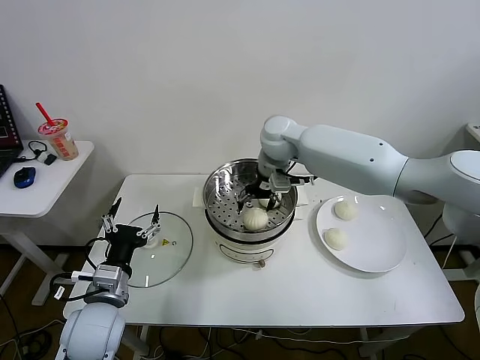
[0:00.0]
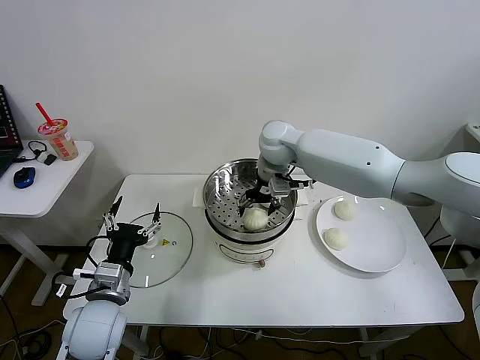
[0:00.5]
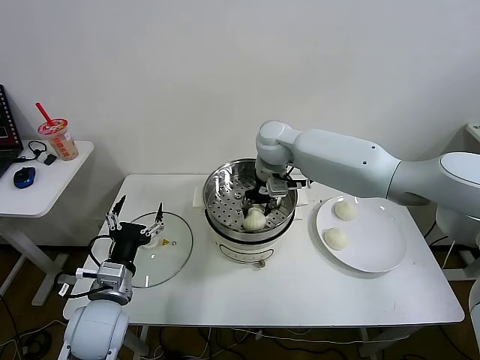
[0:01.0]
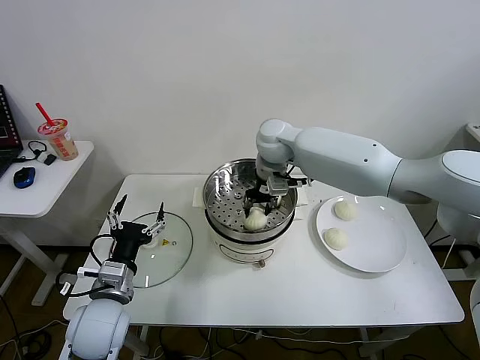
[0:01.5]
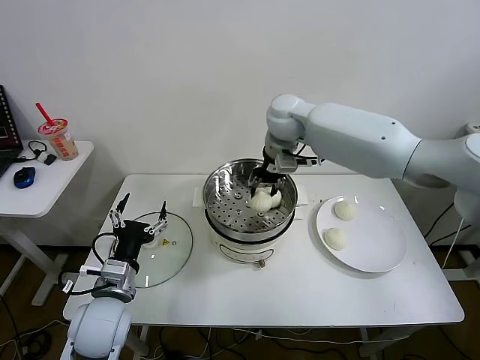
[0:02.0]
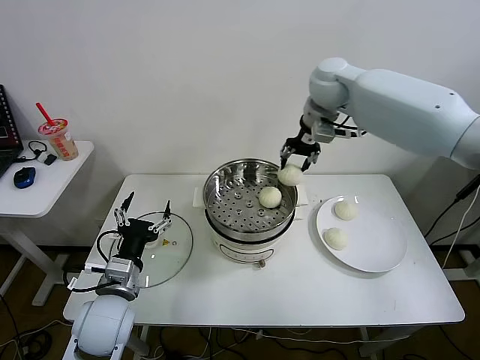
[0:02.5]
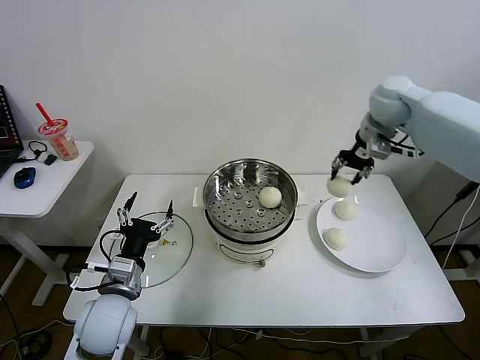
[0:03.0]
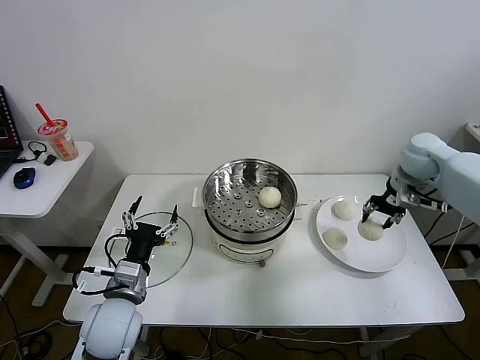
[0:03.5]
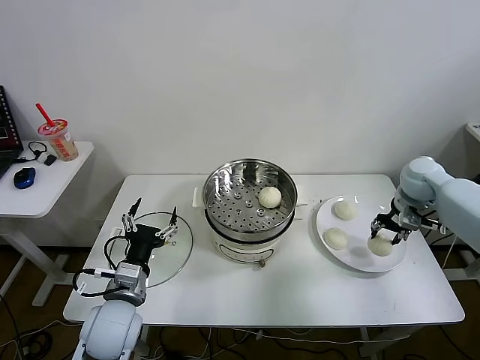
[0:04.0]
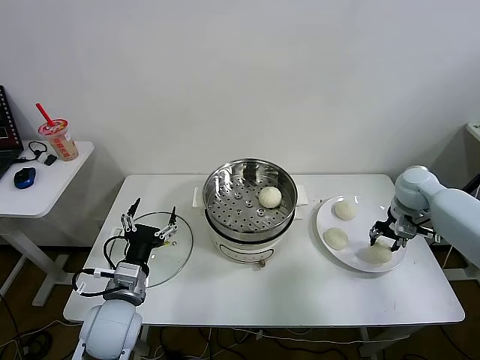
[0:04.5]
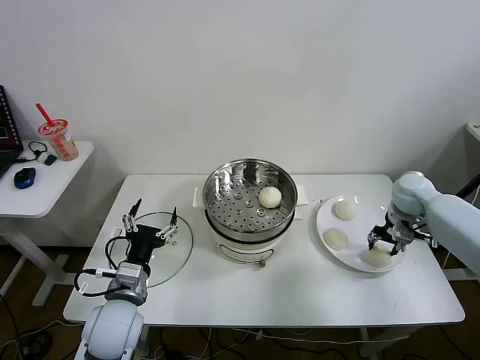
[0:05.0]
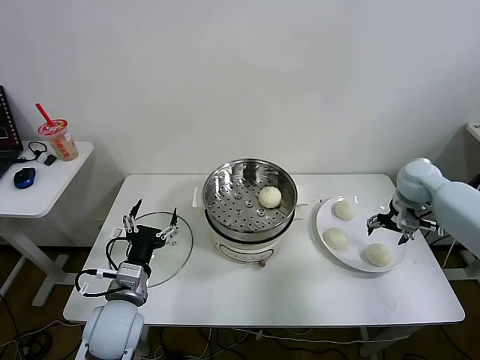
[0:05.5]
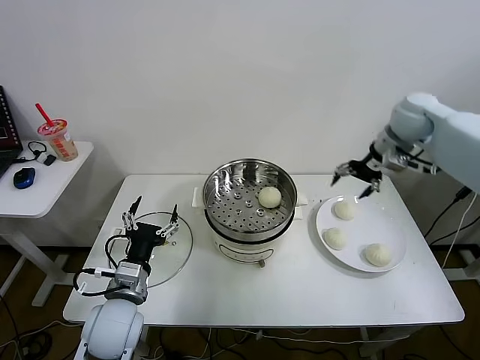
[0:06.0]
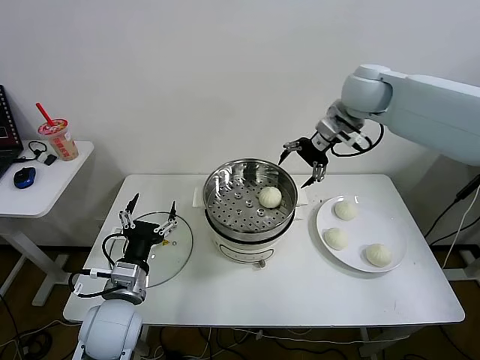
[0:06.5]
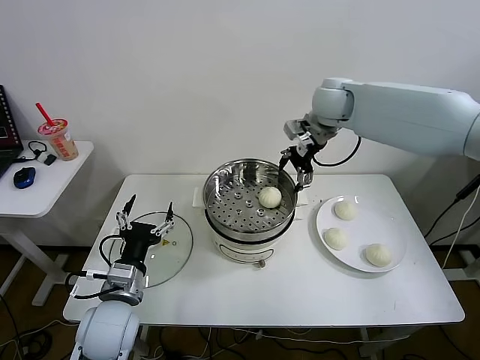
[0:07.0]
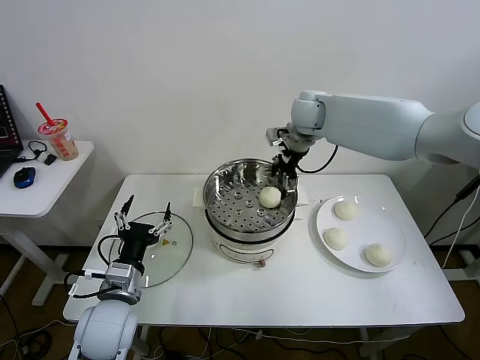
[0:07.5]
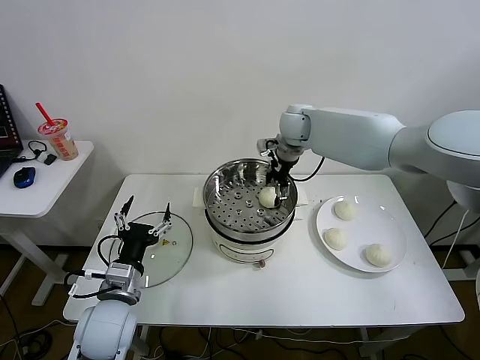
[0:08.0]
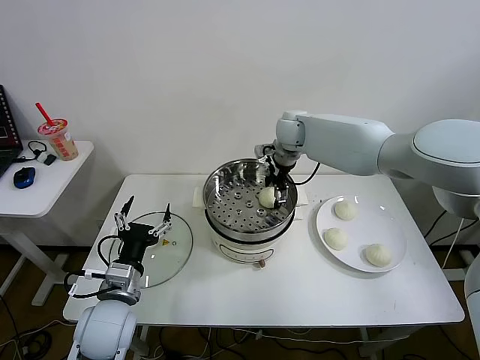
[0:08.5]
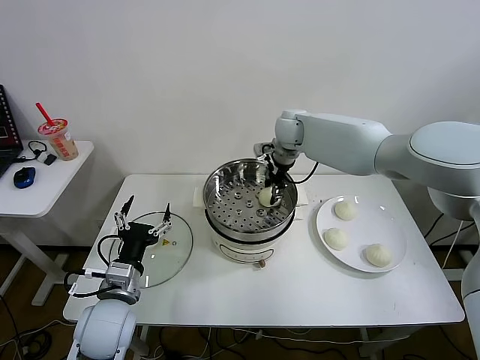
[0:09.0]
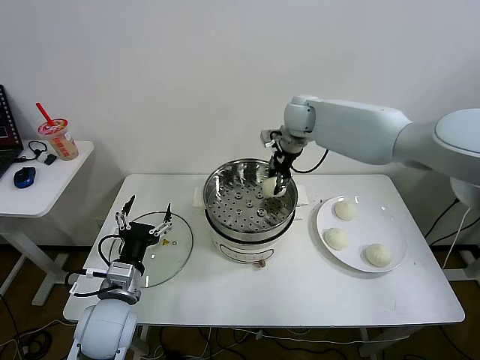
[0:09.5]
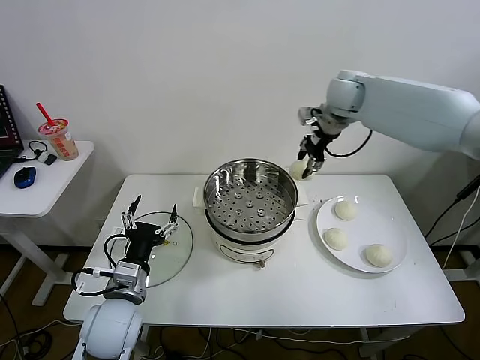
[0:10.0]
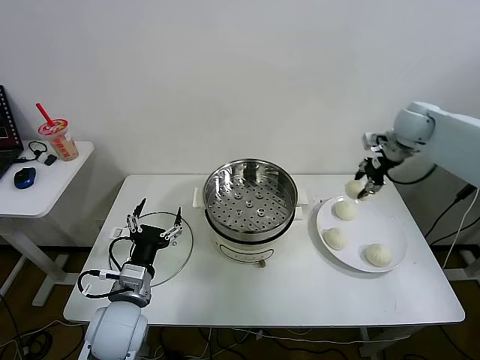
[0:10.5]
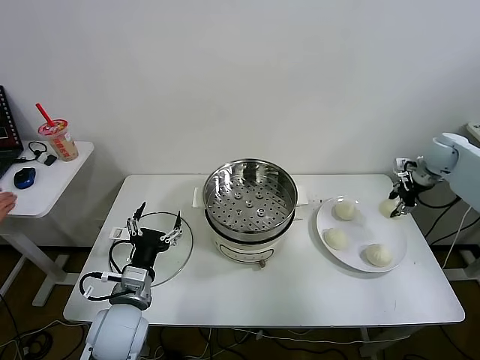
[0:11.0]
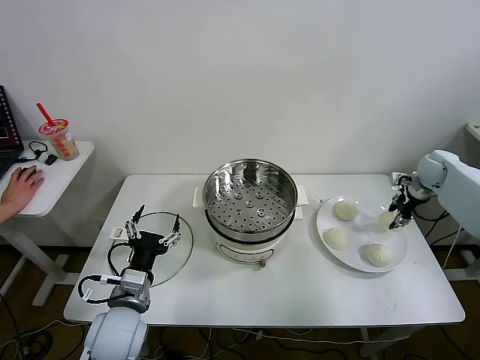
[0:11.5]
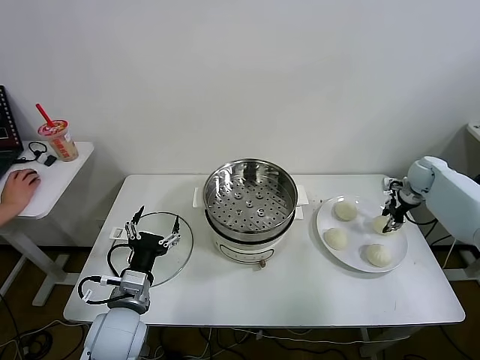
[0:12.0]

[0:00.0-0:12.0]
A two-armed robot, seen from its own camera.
Task of the whole recording: take steamed baozi put them in steamer then cover it.
Step, 0:01.5 to 0:05.0: Place the baozi on the plate with right gripper.
Step, 0:05.5 to 0:09.0: Grasp the baozi with right gripper.
0:00.0 to 0:02.0: The right gripper closes.
0:02.0 to 0:04.0: The right gripper is displaced to the right by approximately 35 cm.
0:04.0 to 0:06.0: The right gripper goes about 15 cm upward and to the left, and opens up.
0:06.0 to 0:08.0: The right gripper heads to the left, covering some 25 cm.
0:08.0 to 0:10.0: The right gripper heads to the right and upward, covering some 10 cm, and closes its fingers.
0:10.0 to 0:12.0: The right gripper travels to the right and downward by about 35 cm.

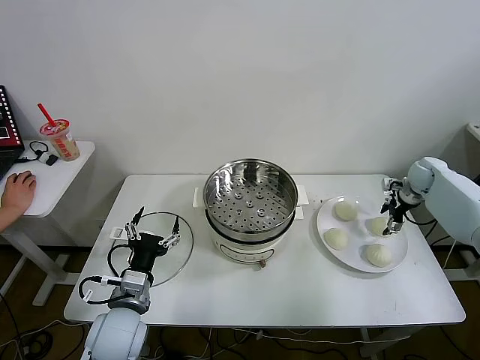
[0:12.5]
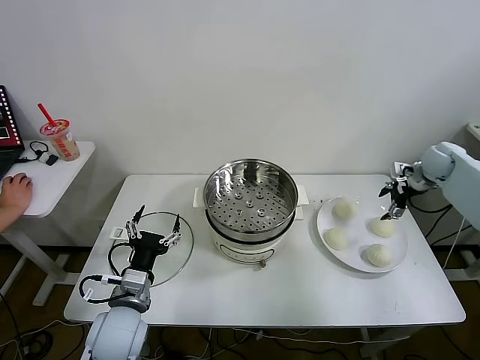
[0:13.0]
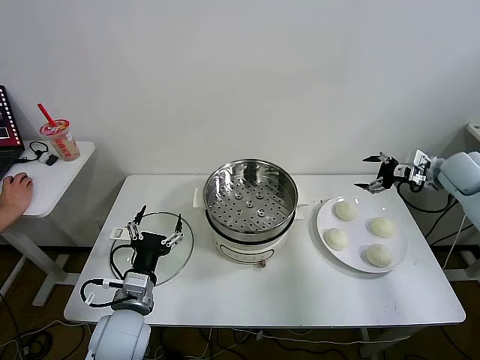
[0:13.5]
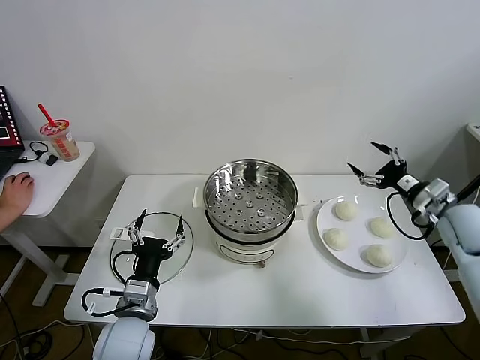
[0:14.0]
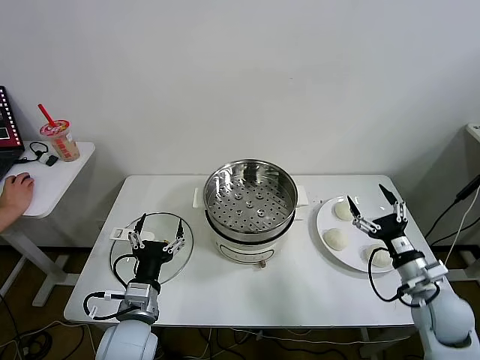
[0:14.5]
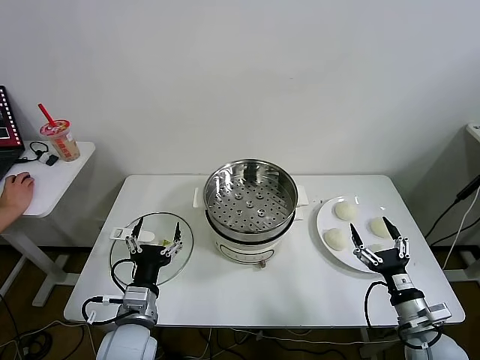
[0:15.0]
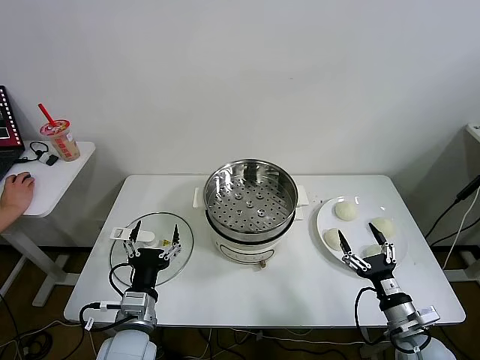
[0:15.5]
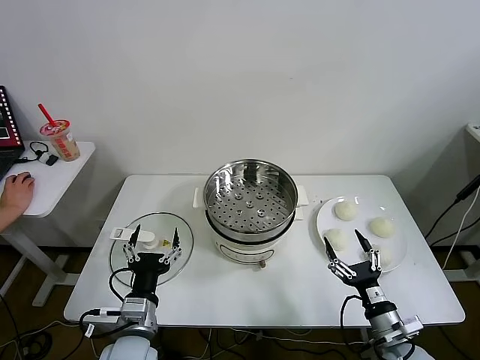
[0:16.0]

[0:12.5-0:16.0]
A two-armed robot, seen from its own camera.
Task of the whole recording: take steamed baozi put them in steamer then cover it.
0:12.5 to 0:14.5: The right gripper shifts some 30 cm backward.
0:14.5 to 0:16.0: The right gripper is displaced backward, downward and to the left by about 15 cm.
